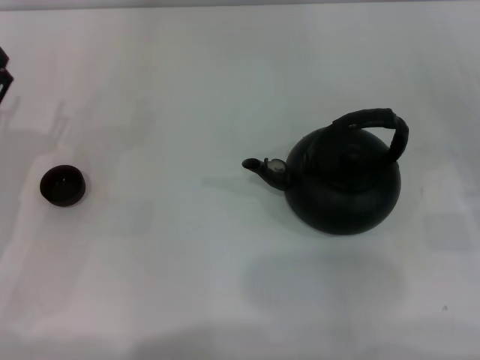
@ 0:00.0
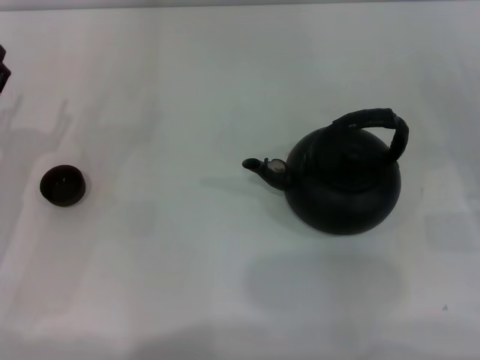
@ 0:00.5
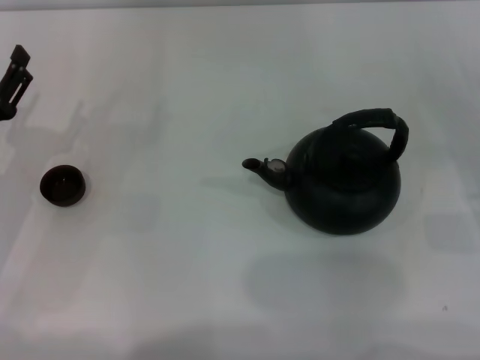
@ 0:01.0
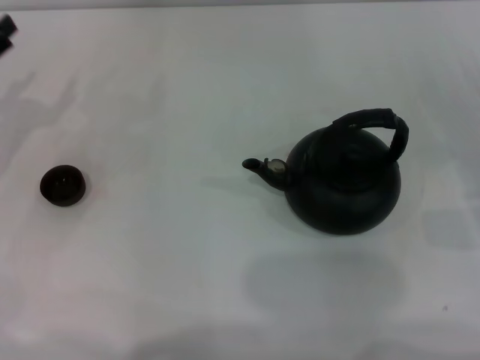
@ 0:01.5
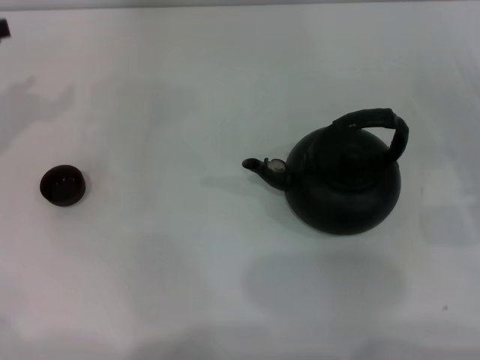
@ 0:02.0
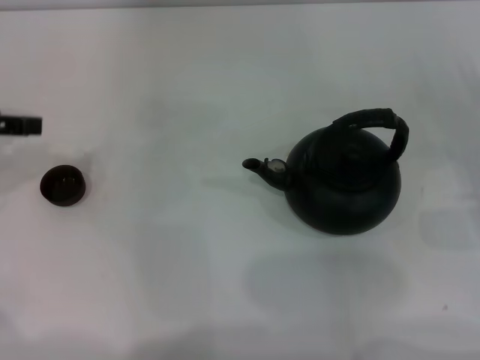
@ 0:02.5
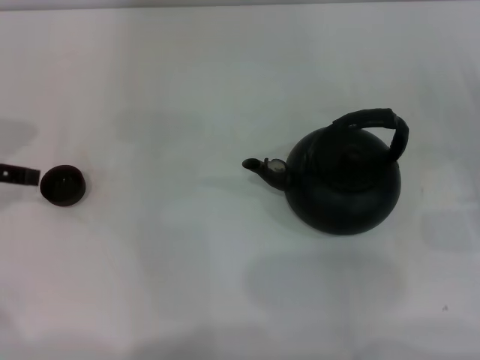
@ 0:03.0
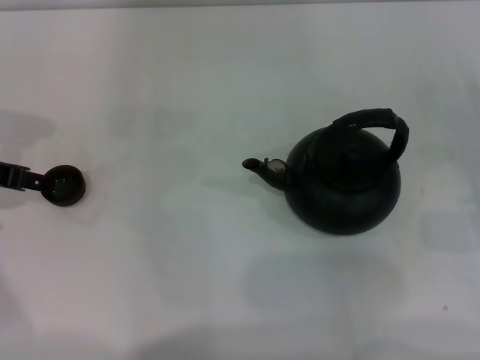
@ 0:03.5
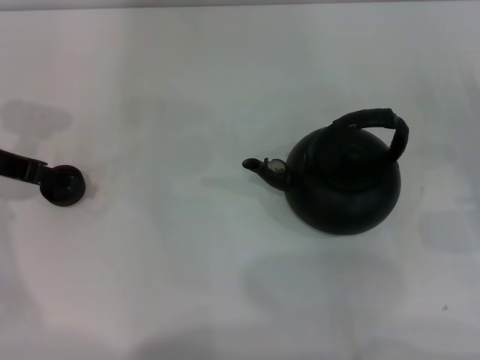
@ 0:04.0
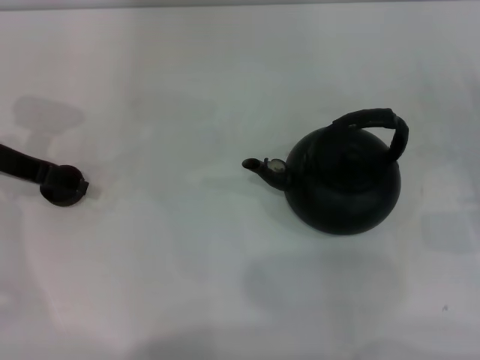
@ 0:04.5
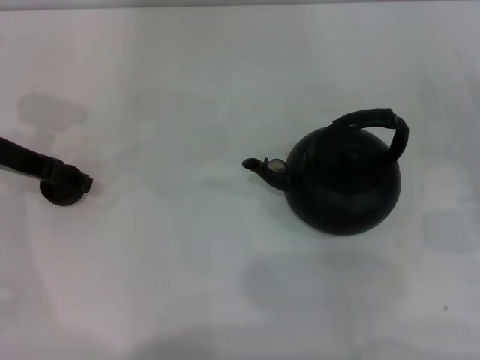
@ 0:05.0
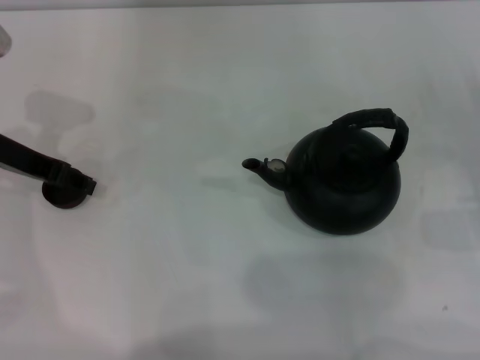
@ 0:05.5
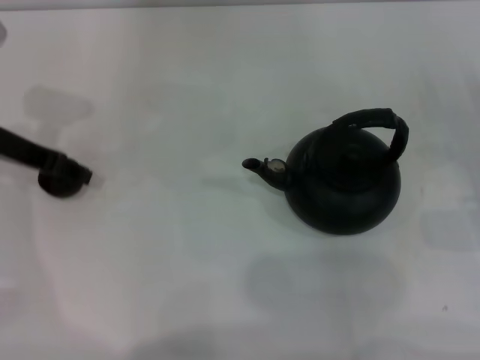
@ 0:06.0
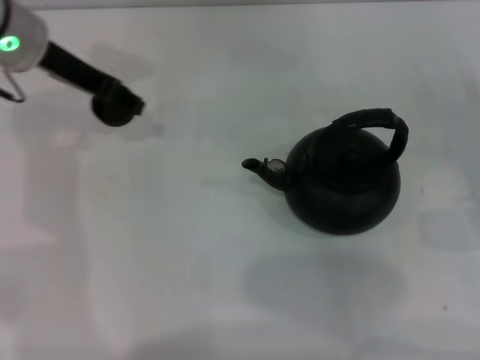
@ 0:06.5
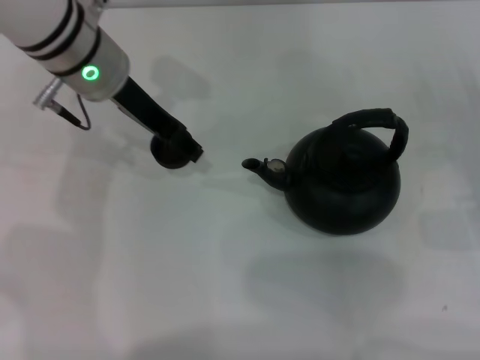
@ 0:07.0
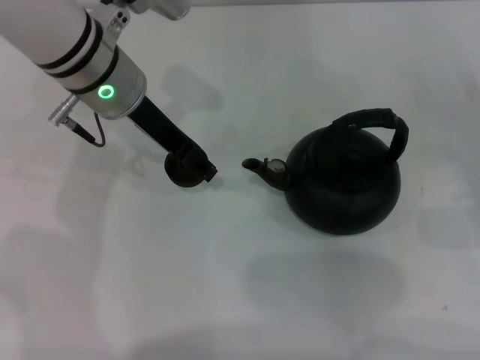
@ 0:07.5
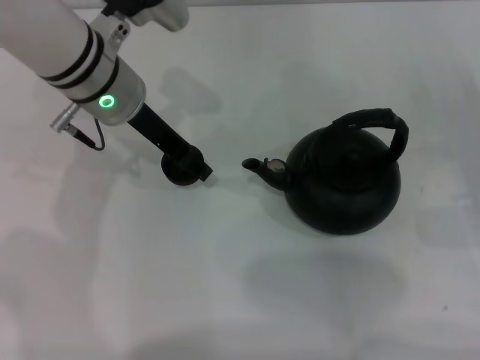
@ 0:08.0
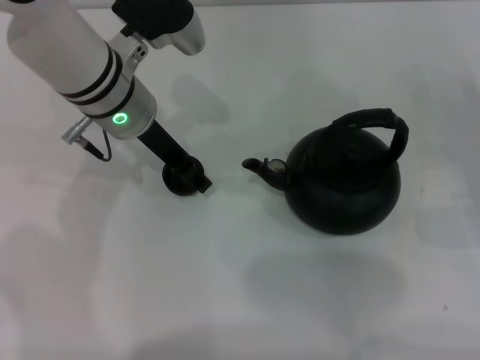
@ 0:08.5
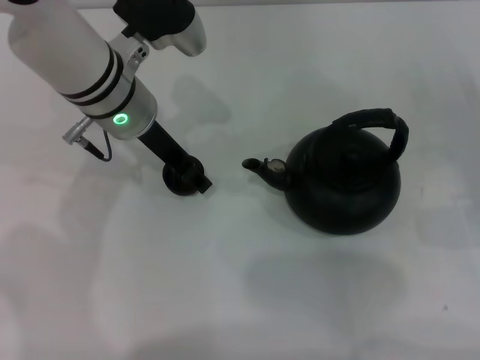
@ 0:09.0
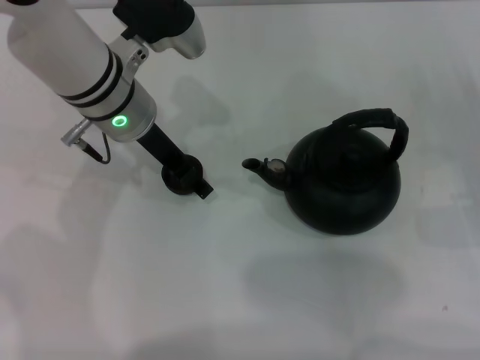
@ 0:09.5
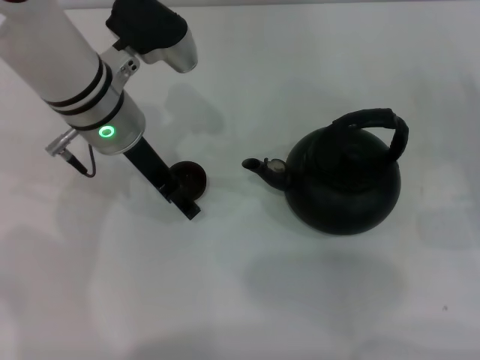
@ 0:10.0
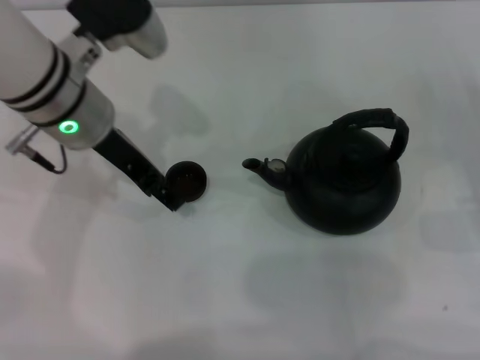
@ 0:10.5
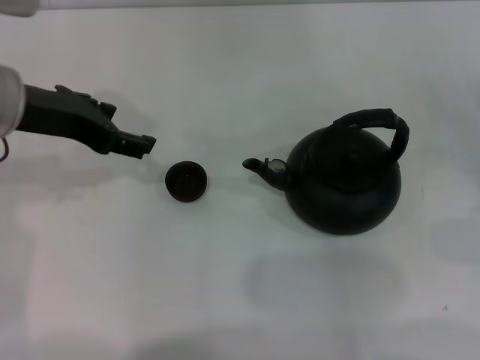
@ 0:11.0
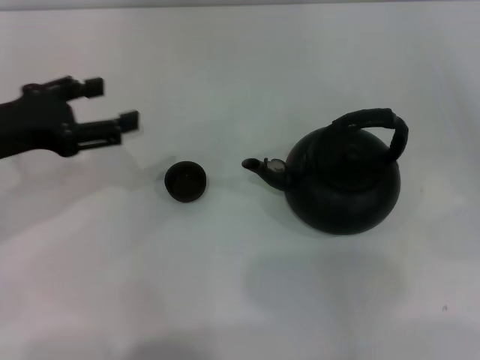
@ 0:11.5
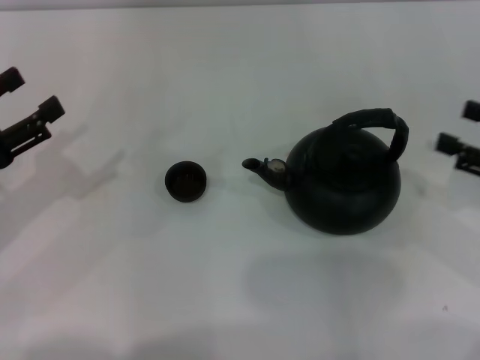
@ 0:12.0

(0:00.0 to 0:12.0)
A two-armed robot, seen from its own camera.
Task of the whole recording: Grasp the handle of the teapot with one hand and pour tea into the teacup.
Step, 0:00.0 - 0:05.5: Pick up the teacup with the left gripper.
Step, 0:06.0 - 0:10.5: Place the teacup in the center of view with the left gripper.
0:02.0 - 0:04.0: The left gripper shifts about 5 cm to the right.
0:04.0 - 0:06.0: The left gripper closes up.
0:06.0 - 0:08.0: The left gripper travels to the right by approximately 15 cm.
0:08.0 - 0:10.0: The left gripper opens up.
0:10.0 - 0:12.0: The right gripper is displaced upward by some 10 cm. The left gripper moves to the left and backward, about 25 cm.

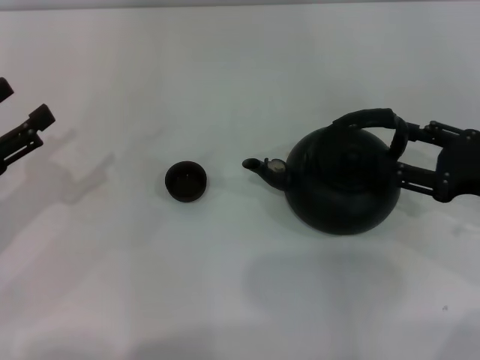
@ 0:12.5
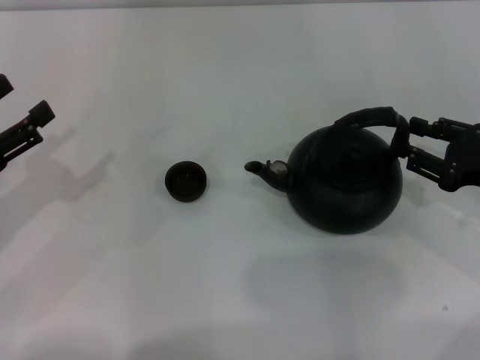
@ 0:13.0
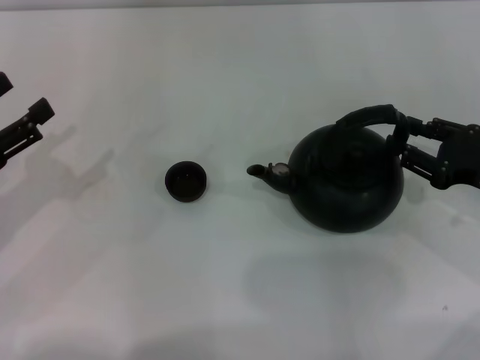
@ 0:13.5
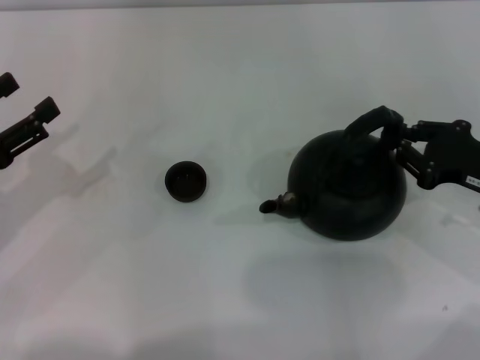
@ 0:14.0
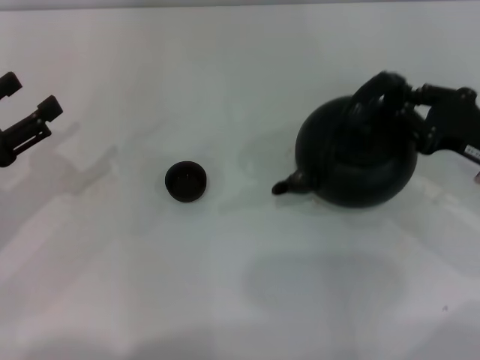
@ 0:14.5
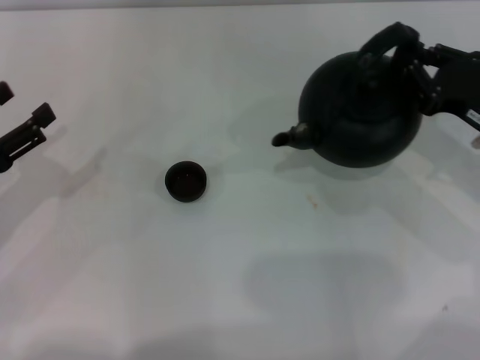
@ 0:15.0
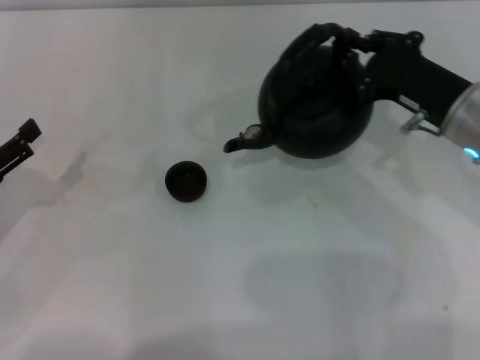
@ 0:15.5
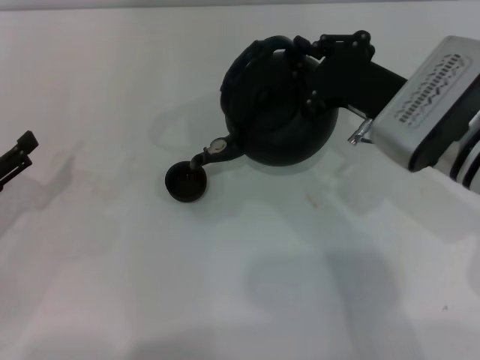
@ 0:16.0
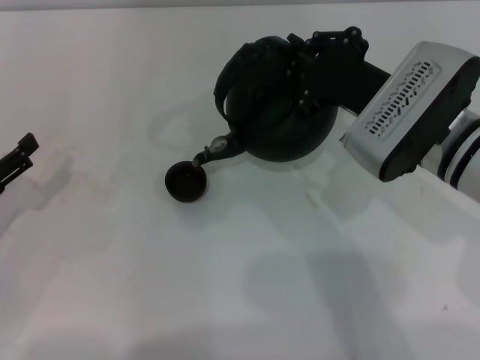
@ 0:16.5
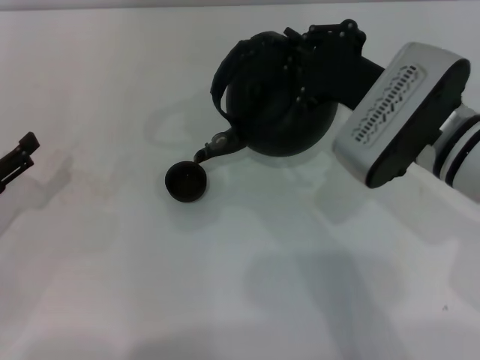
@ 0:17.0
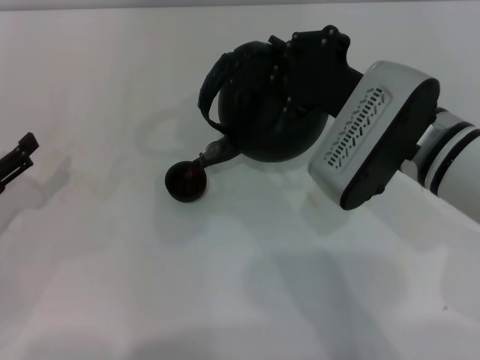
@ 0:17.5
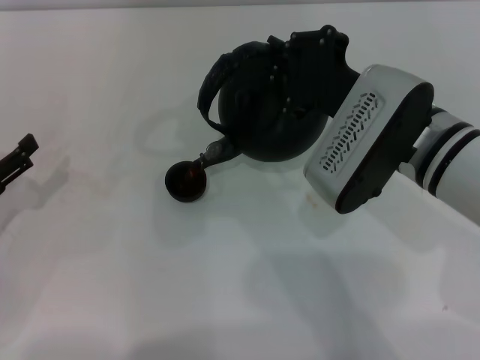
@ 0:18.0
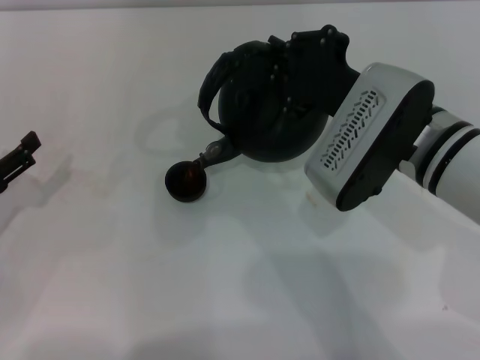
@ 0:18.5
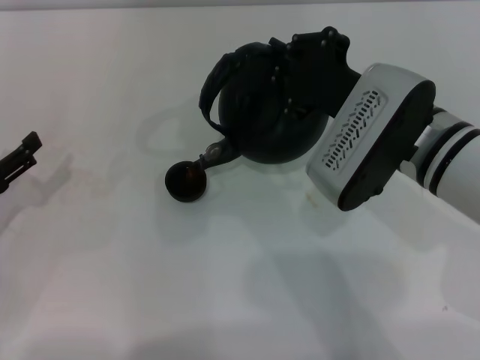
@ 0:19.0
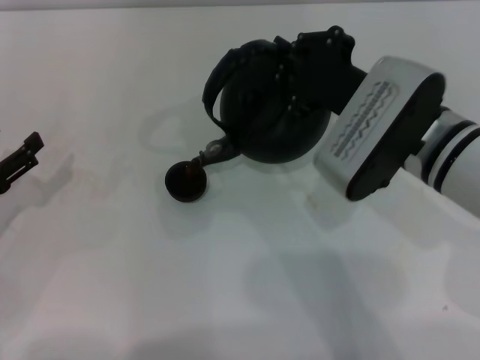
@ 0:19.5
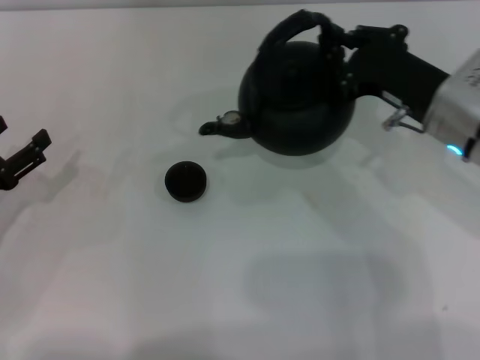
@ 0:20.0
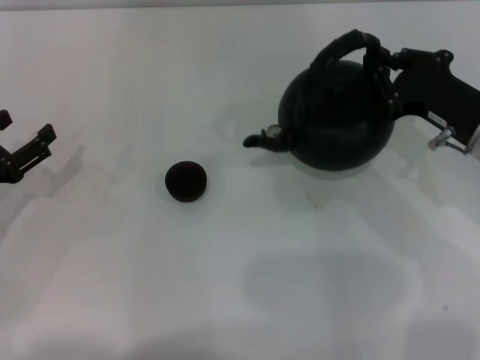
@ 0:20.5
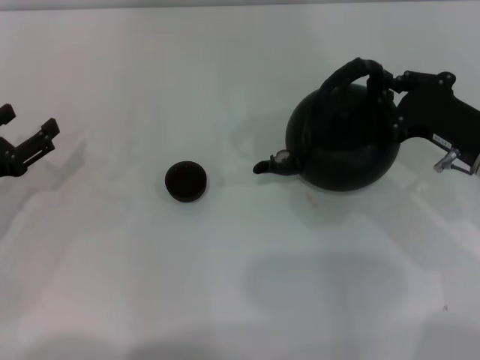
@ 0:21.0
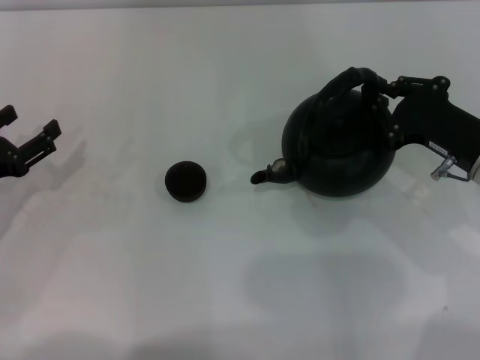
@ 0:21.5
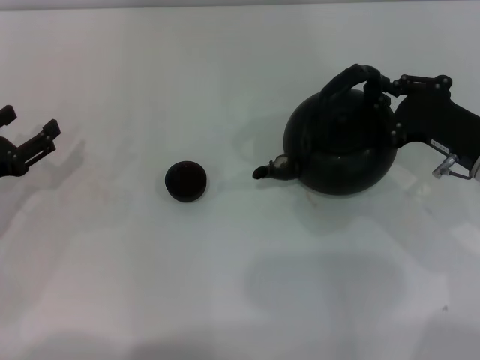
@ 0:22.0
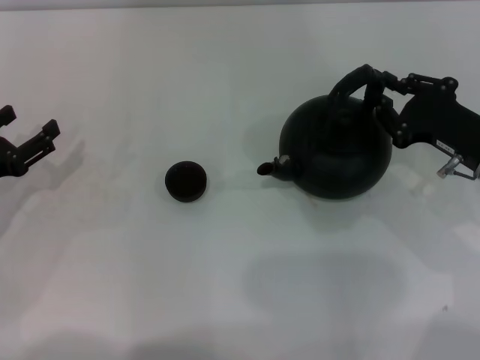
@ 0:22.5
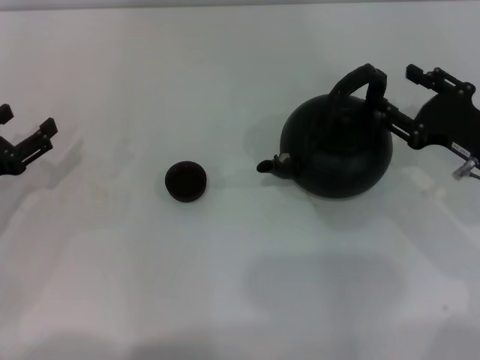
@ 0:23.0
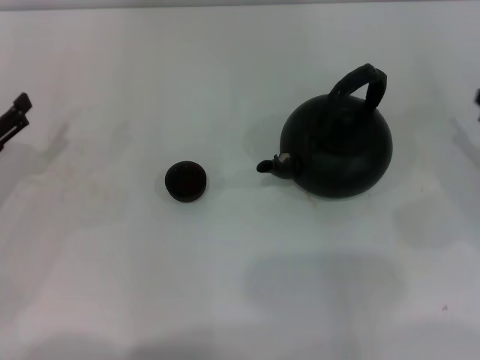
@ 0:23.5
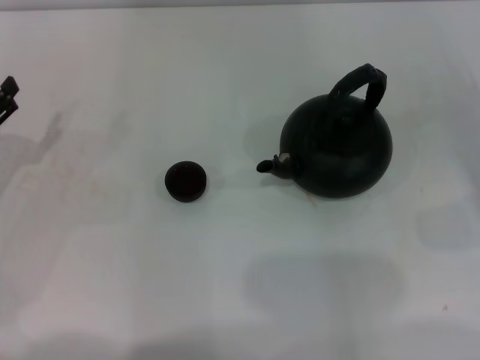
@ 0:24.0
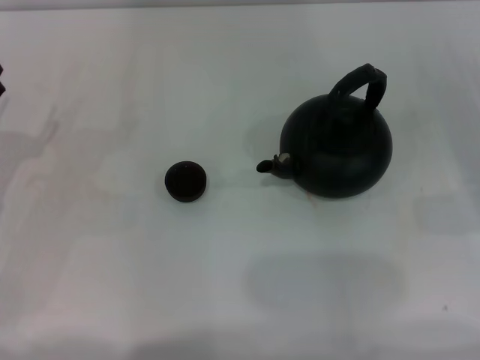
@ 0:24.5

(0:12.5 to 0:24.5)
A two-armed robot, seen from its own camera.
Task of the whole recording: Grasp the handle of the teapot with one hand and pour tea into the teacup.
Step, 0:12.5 - 0:14.5: Pick up the teapot with the right gripper.
Step, 0:15.0 - 0:19.5: Pour tea into the teacup with the right gripper.
Step, 0:20.0 - 0:23.0: Put down the teapot with the right gripper.
0:12.5 - 0:14.5: The right gripper closes its fingers.
0:14.5 - 0:16.5: The right gripper shifts some 15 cm to the left.
0:16.5 - 0:18.5: There are only small adjustments of the grippers.
0:18.5 - 0:20.5: The right gripper heads to the right, covering about 10 cm.
0:20.5 - 0:22.5: The grippers make only small movements.
0:22.5 - 0:24.5: The right gripper moves to the right, approximately 10 cm, and opens.

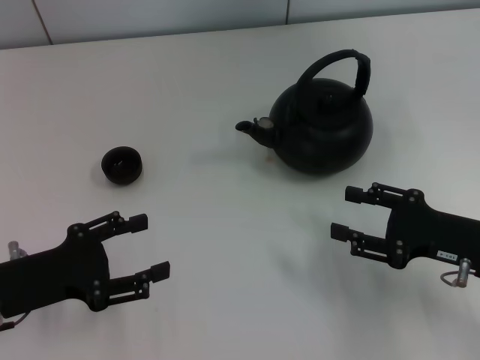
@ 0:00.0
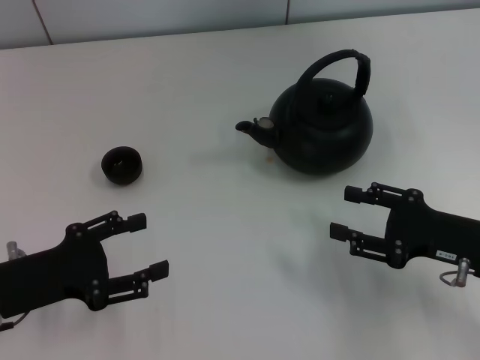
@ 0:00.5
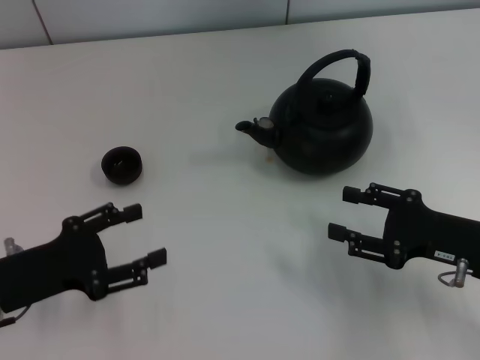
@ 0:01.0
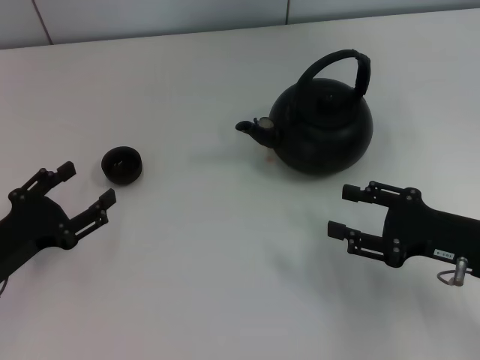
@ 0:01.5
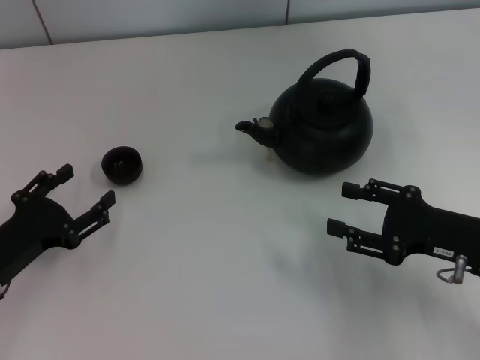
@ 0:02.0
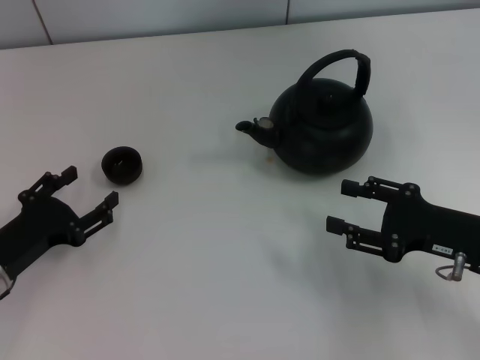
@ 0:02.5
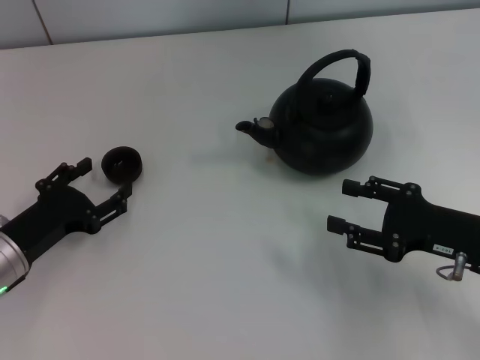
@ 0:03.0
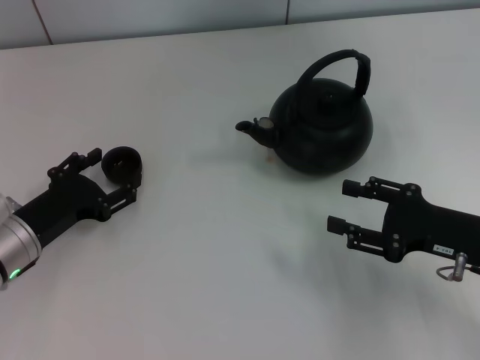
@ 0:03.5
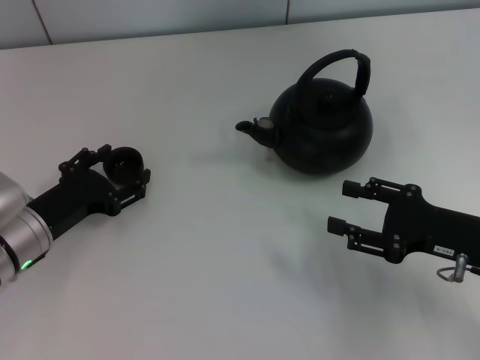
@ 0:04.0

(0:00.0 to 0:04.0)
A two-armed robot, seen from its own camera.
Task of the whole recording: Grasp the handle of the teapot with one hand and pour tea into the teacup.
0:02.0 - 0:04.0: The left gripper moves forward, some 5 cm.
